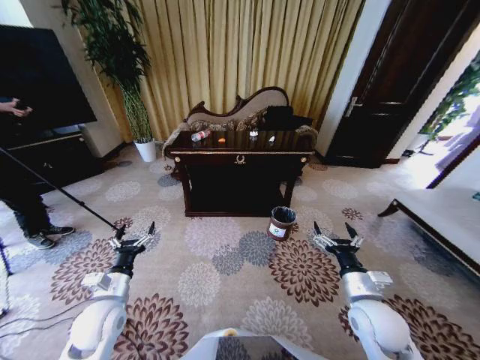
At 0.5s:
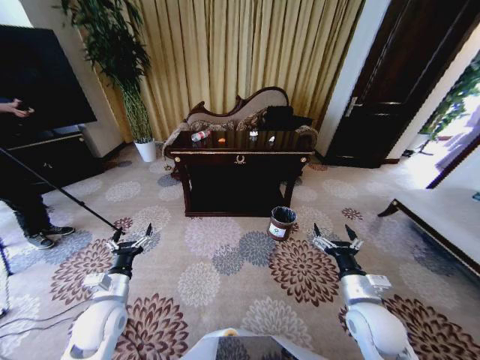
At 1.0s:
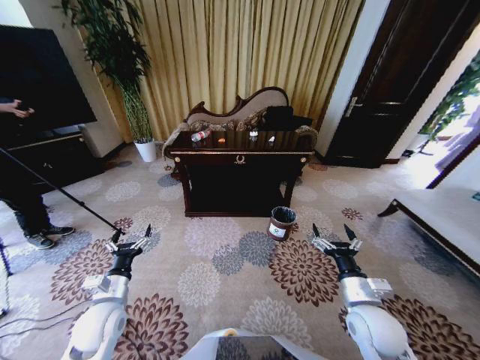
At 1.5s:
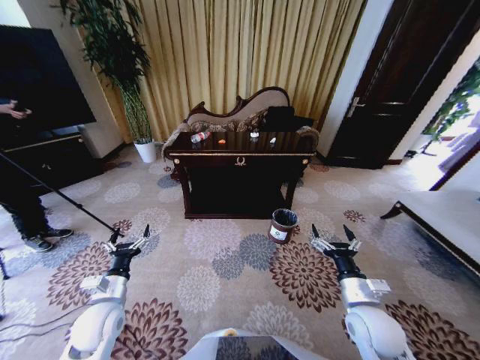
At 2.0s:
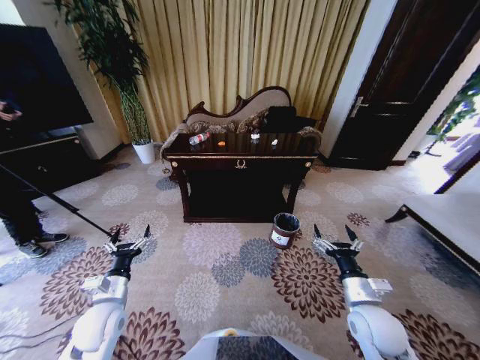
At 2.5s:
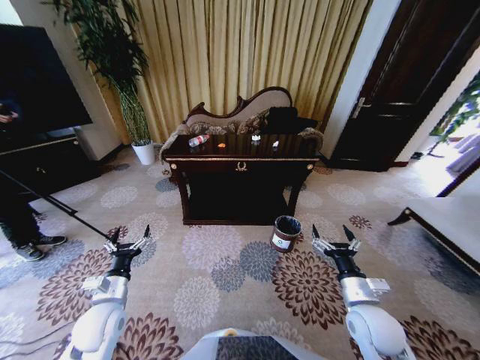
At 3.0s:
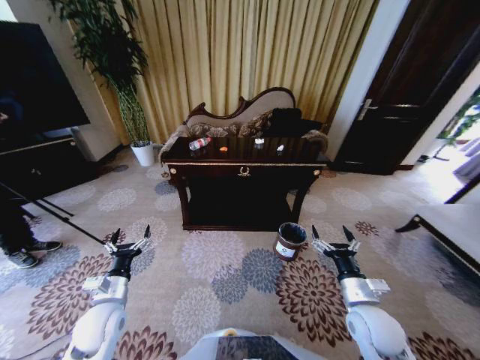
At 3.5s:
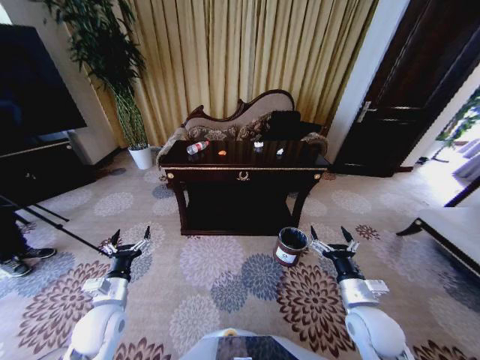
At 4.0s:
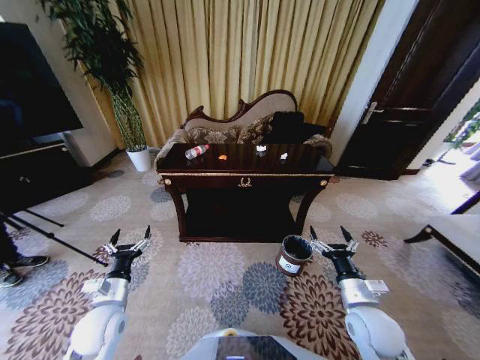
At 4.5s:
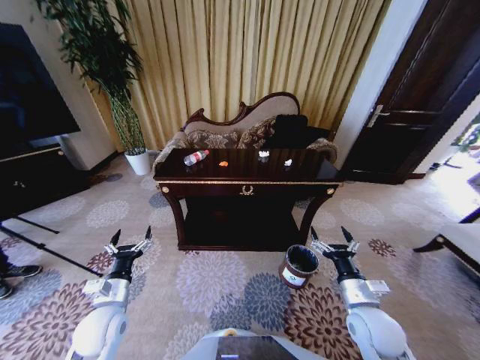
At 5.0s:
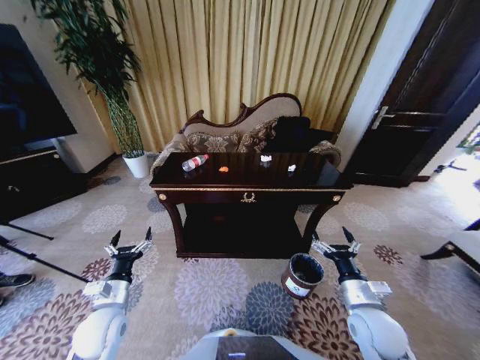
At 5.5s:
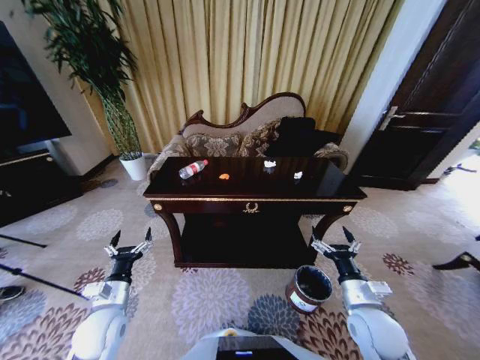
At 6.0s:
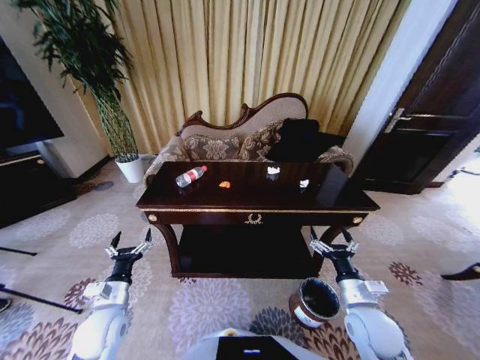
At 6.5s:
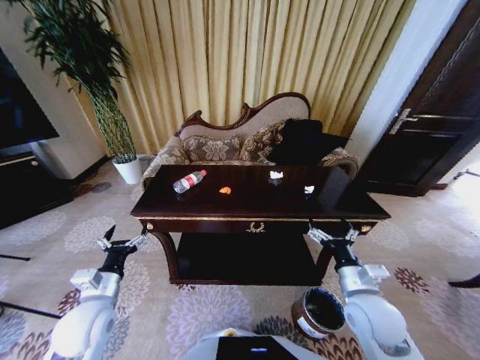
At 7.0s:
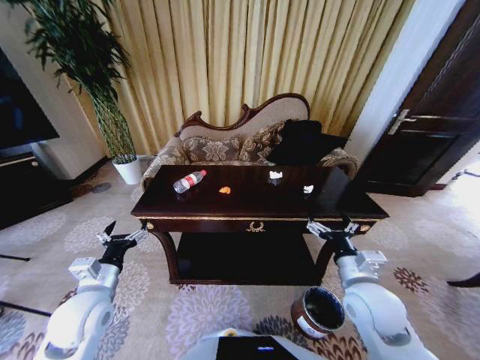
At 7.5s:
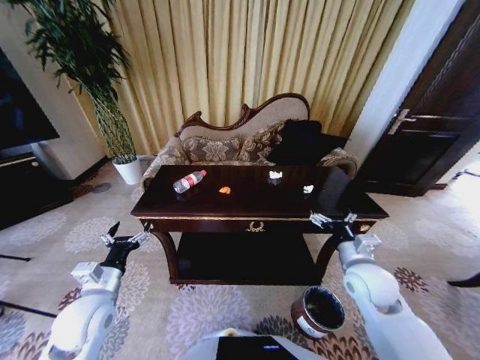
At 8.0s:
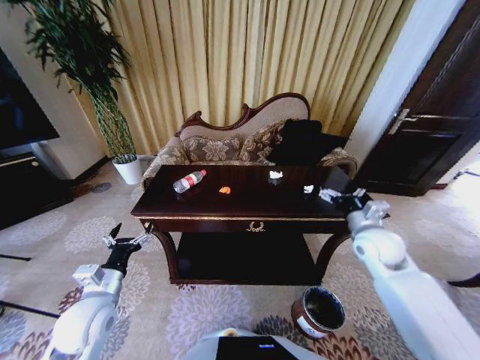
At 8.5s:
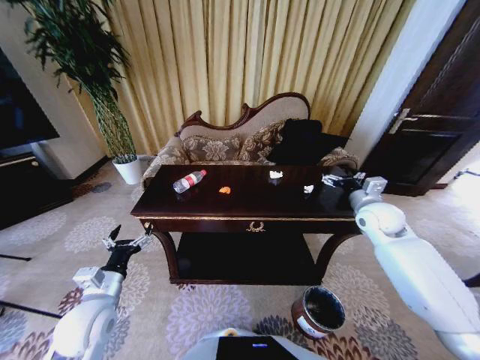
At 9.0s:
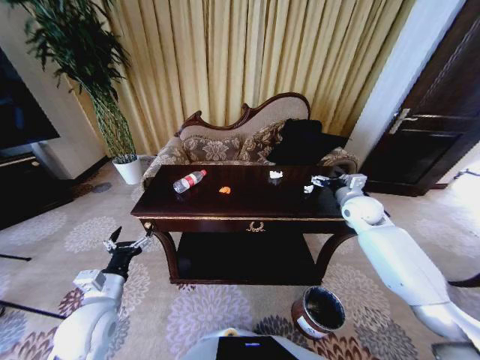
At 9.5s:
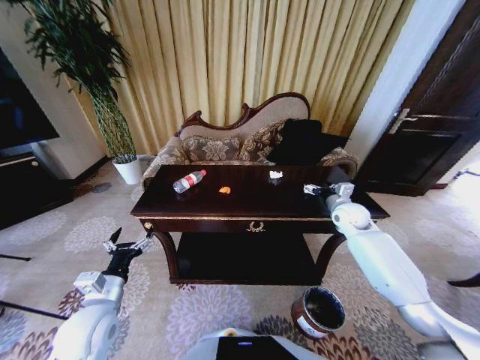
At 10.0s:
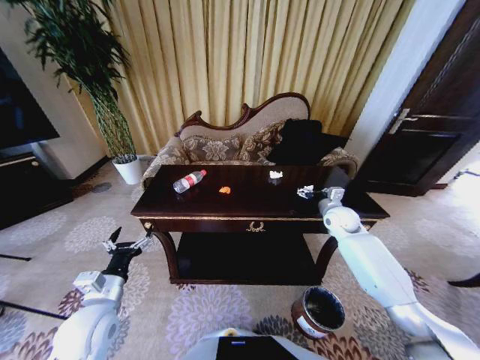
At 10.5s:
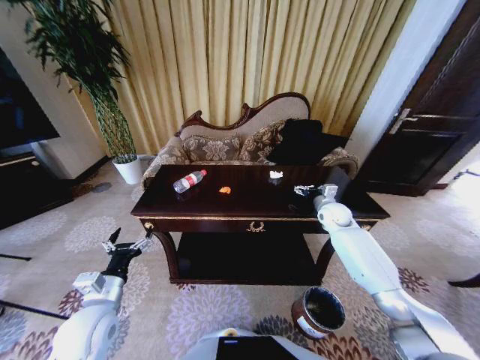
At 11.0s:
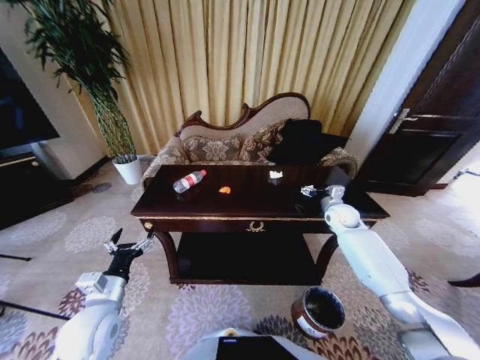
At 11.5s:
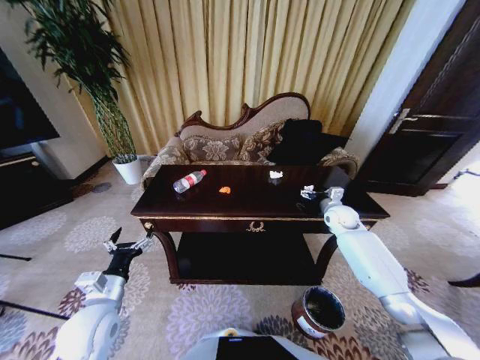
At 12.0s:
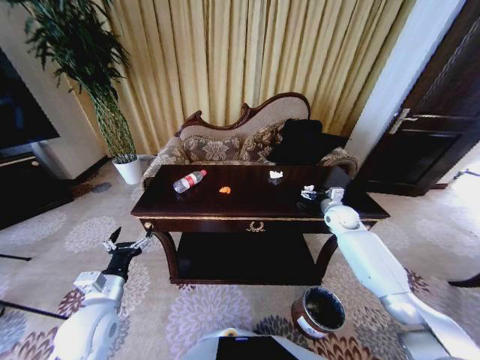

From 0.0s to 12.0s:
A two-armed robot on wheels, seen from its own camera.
Task of the whole recording: Move to the front of the table and place the trash on the table into the trash bin.
From 6.0s to 8.0s: The right gripper heads forward and upward, covering approximately 20 cm. The left gripper heads upward, covering roughly 5 cm.
From 8.0s to 10.0s: The right gripper goes about 15 cm forward.
From 10.0s to 12.0s: The grippers make only small movements.

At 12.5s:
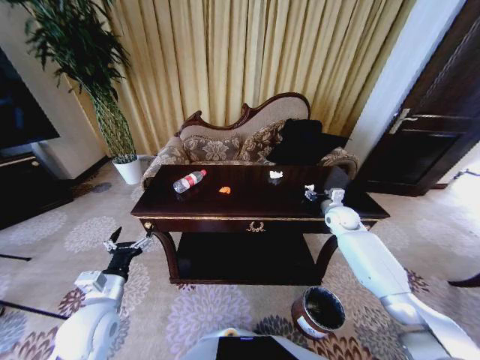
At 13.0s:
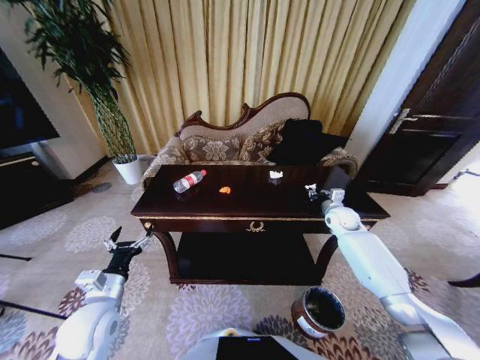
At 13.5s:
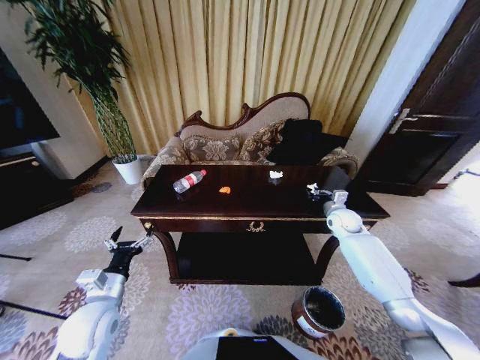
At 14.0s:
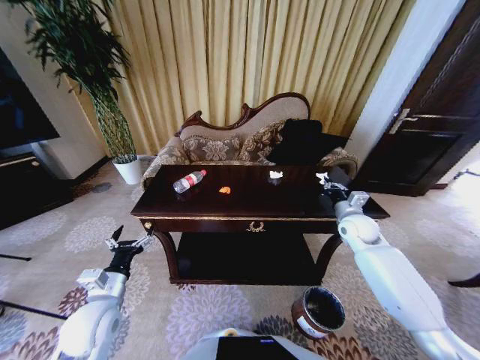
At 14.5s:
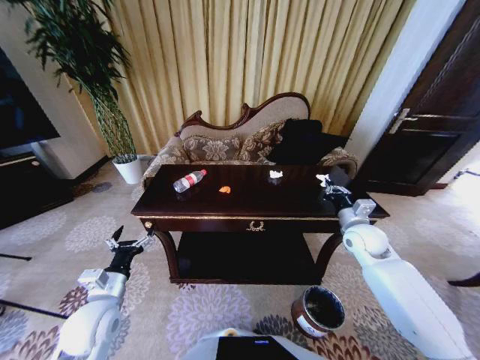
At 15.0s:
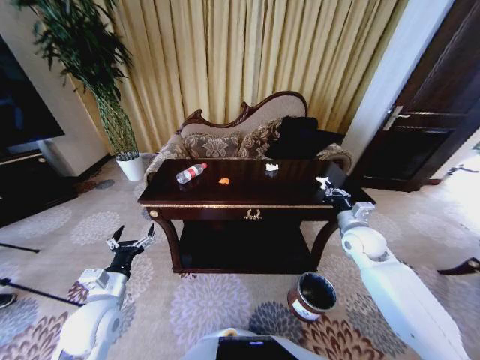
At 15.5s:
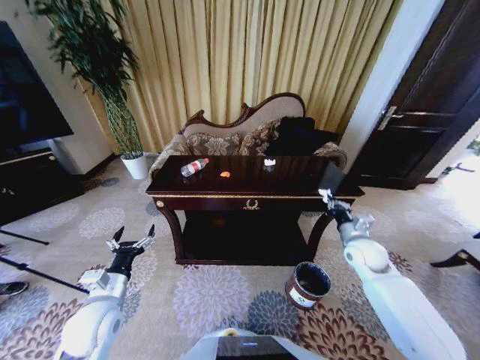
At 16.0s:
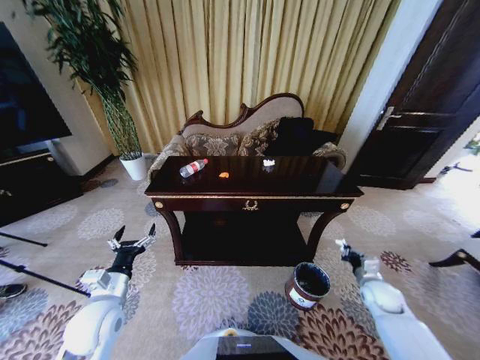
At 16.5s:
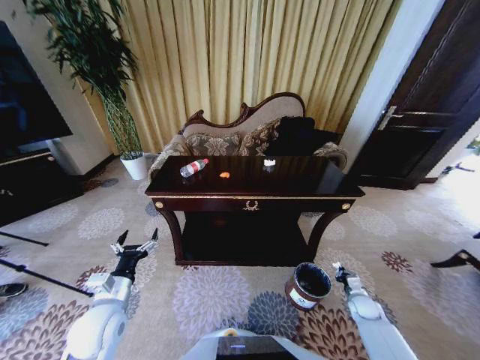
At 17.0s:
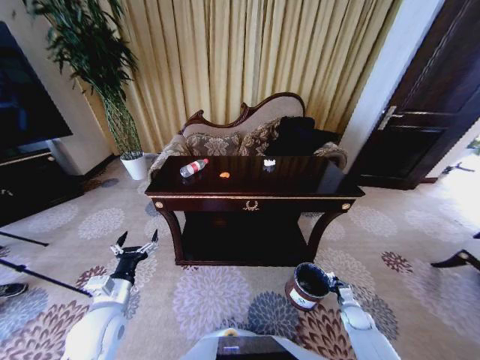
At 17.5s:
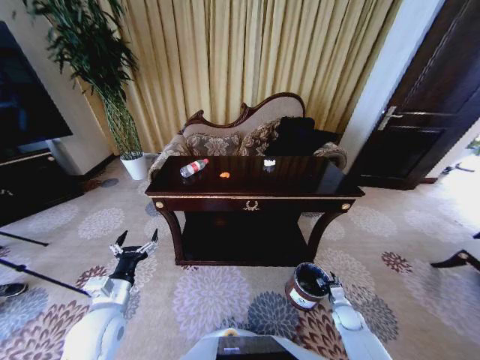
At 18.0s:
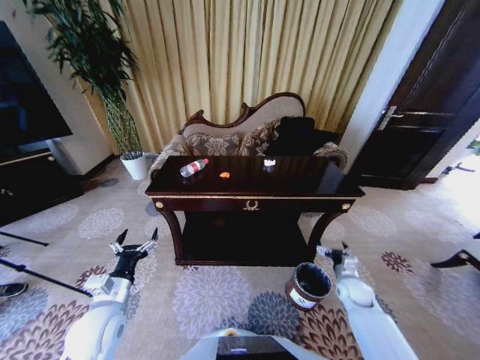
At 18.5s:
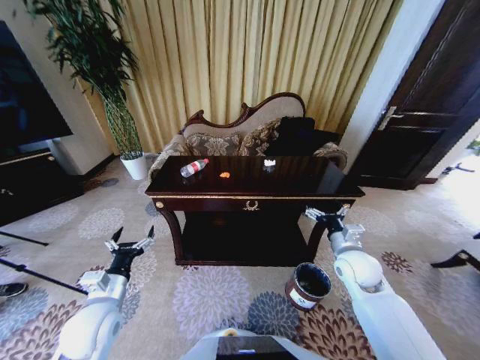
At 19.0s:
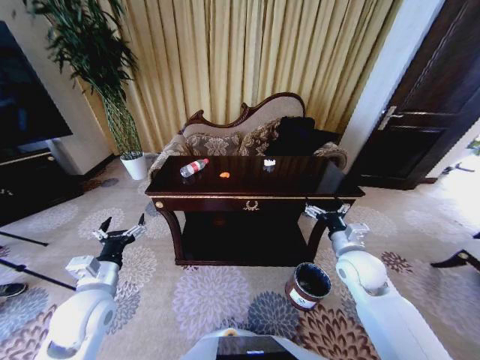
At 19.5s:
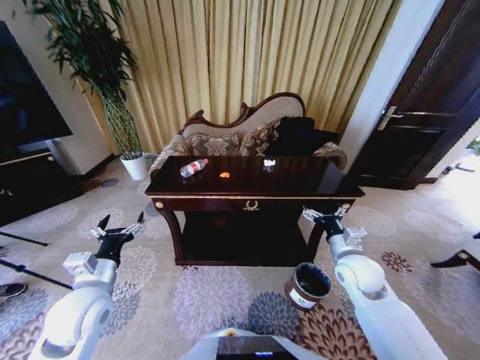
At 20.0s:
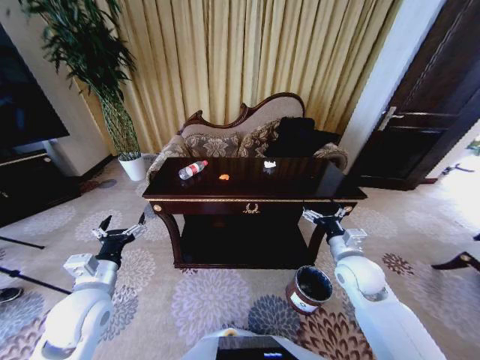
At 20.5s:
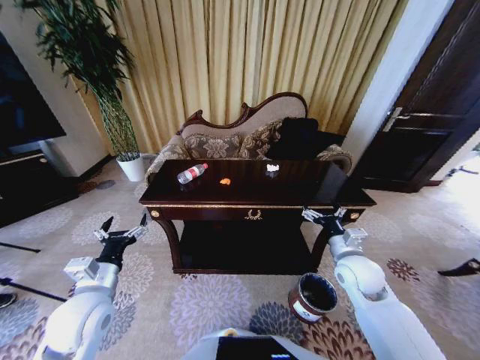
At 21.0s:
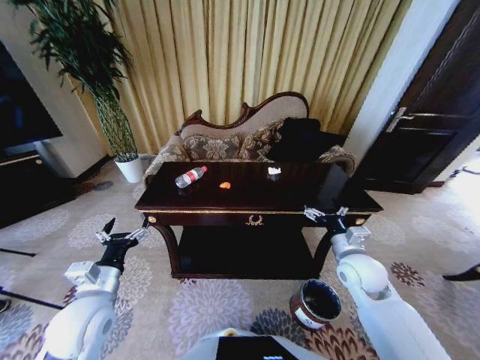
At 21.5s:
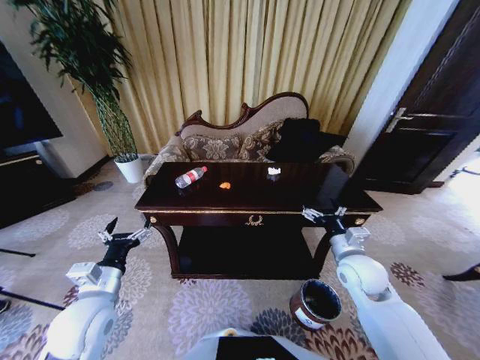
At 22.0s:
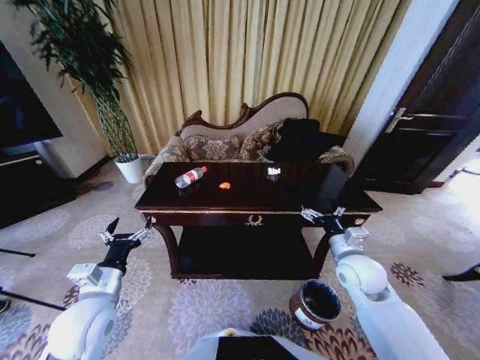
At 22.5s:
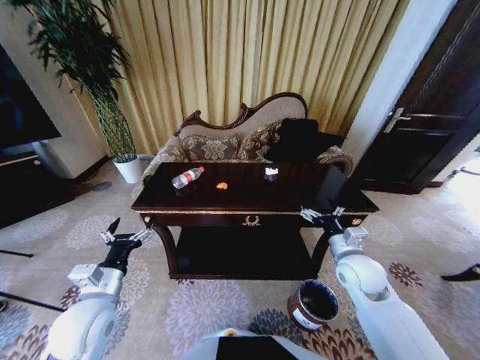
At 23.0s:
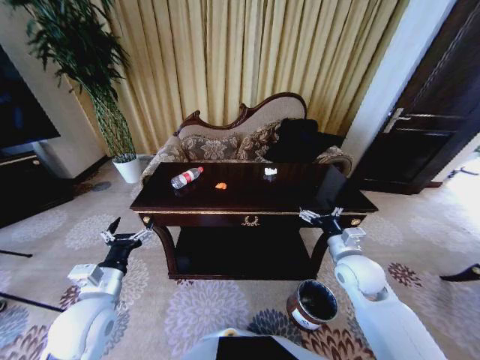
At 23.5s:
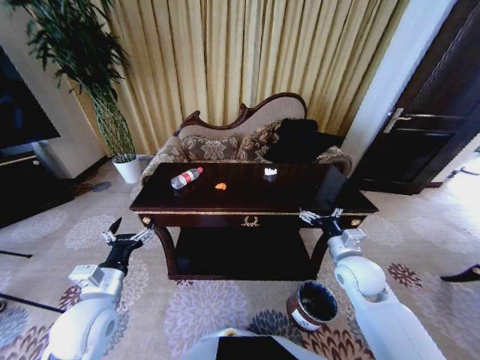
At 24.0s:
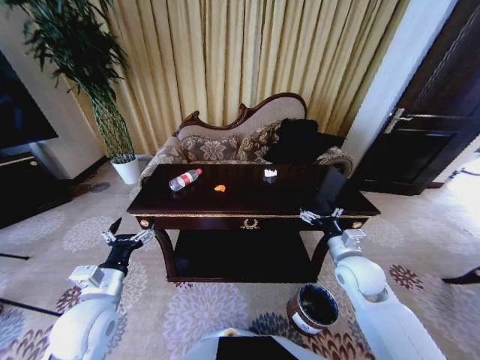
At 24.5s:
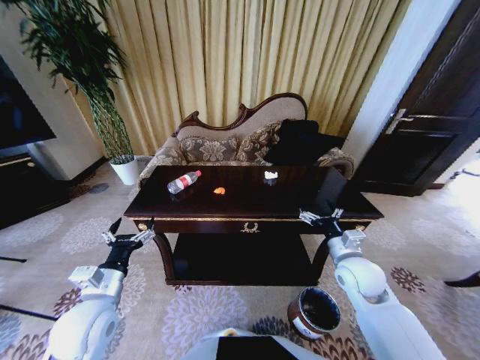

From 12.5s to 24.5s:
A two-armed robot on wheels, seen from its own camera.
Task of the whole recording: Move to the front of the table and place the trash on the table into the trash bin.
From 12.5s to 14.5s: The right gripper is displaced backward by approximately 10 cm, and closes up.
From 14.5s to 16.5s: The right gripper travels downward and backward by approximately 30 cm.
From 16.5s to 18.5s: The right gripper goes roughly 30 cm upward and to the left, and opens its fingers.
From 22.5s to 24.5s: Both grippers stay about where they are.

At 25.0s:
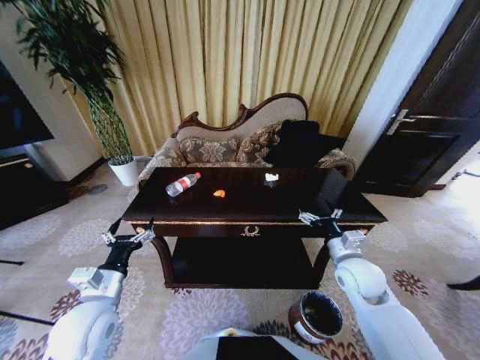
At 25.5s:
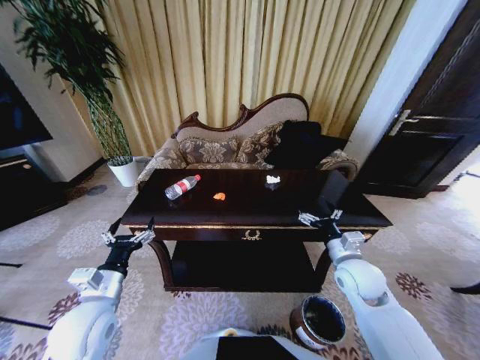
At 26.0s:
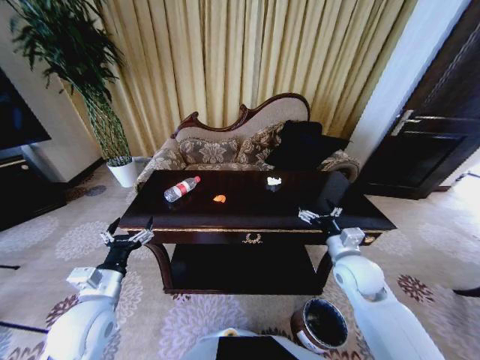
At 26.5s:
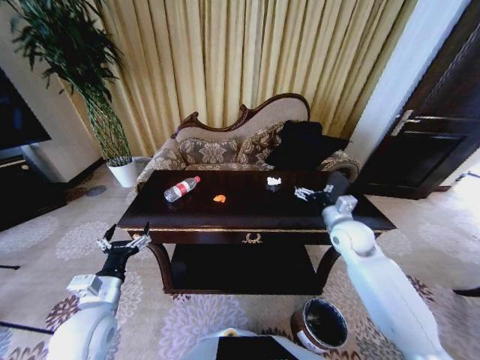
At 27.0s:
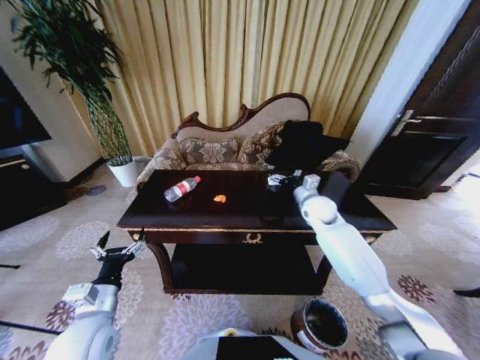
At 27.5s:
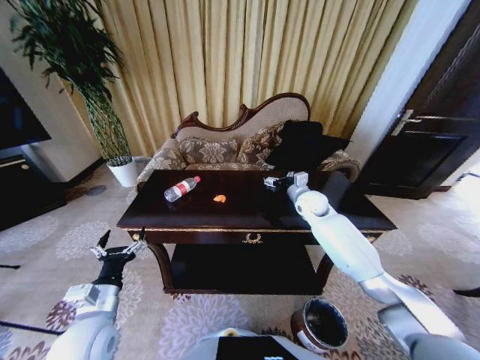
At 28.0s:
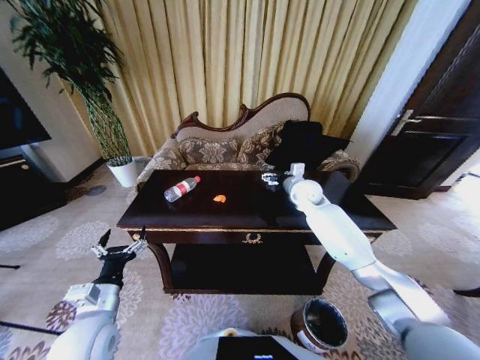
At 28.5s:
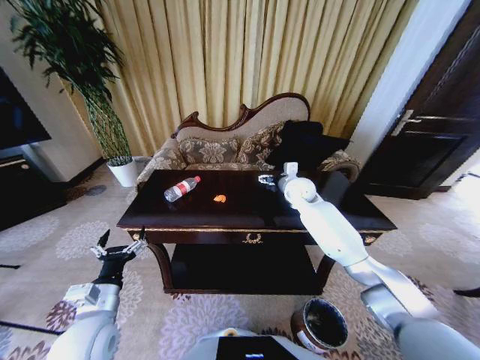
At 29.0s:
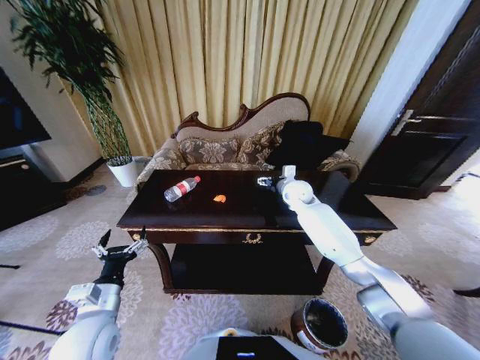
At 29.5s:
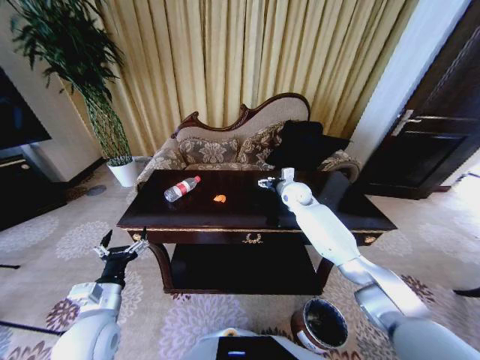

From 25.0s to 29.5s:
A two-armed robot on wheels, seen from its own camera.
Task of the whole recording: Move to the front of the table and place the trash on the table into the trash bin.
From 25.0s to 27.0s: The right gripper goes approximately 20 cm forward.
From 27.0s to 29.5s: The right gripper shifts about 10 cm forward and to the left.
